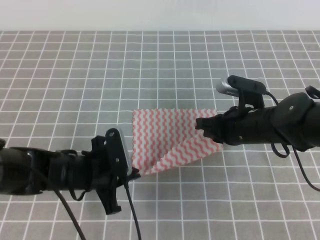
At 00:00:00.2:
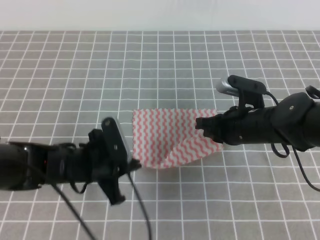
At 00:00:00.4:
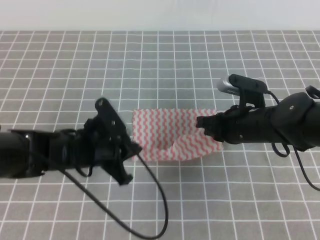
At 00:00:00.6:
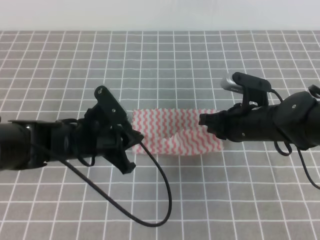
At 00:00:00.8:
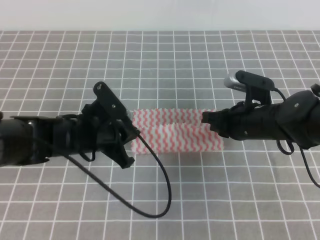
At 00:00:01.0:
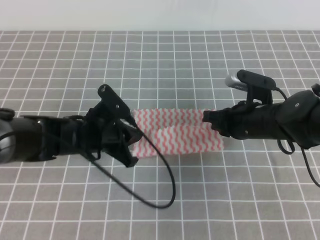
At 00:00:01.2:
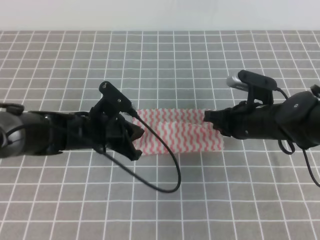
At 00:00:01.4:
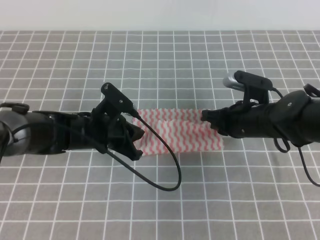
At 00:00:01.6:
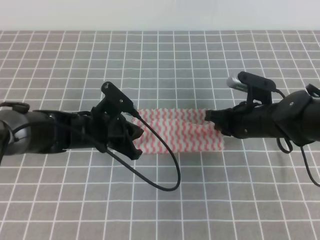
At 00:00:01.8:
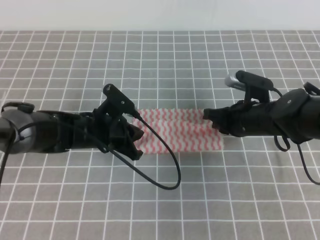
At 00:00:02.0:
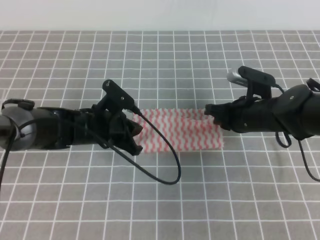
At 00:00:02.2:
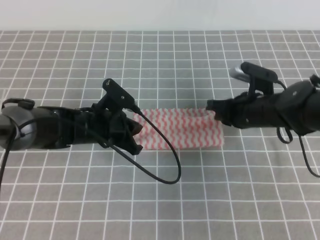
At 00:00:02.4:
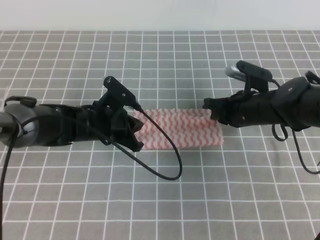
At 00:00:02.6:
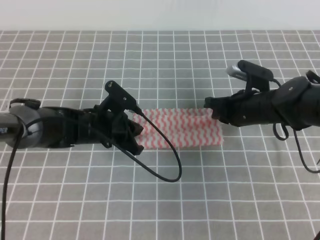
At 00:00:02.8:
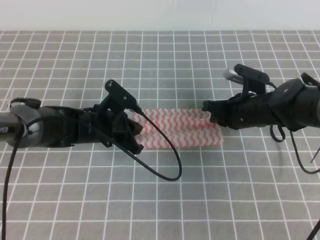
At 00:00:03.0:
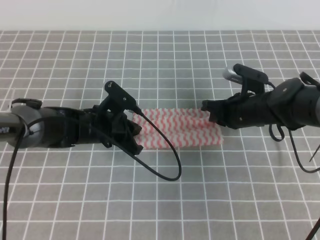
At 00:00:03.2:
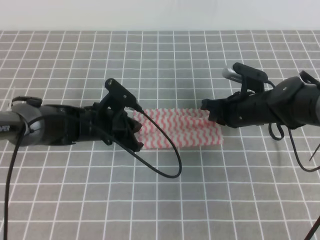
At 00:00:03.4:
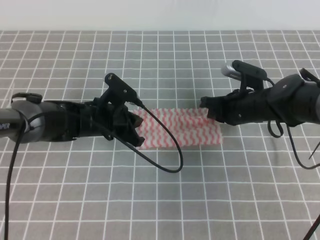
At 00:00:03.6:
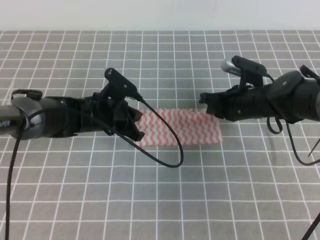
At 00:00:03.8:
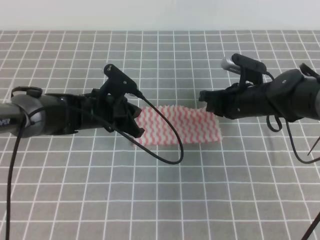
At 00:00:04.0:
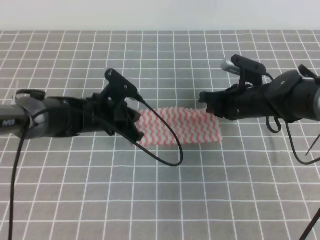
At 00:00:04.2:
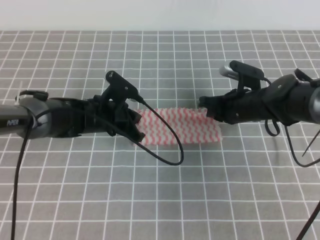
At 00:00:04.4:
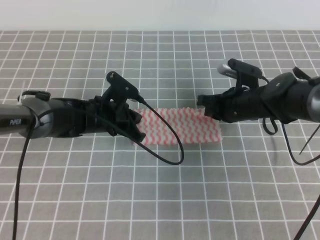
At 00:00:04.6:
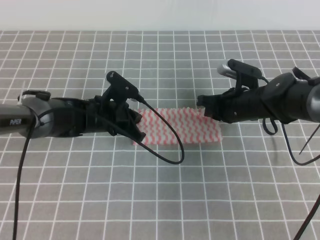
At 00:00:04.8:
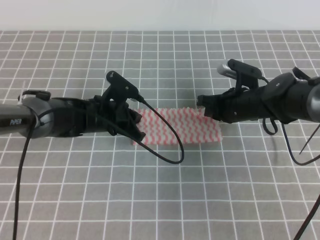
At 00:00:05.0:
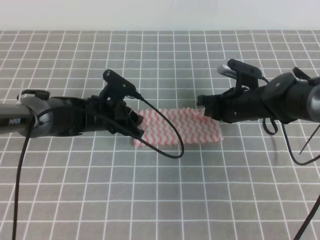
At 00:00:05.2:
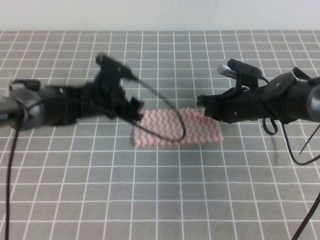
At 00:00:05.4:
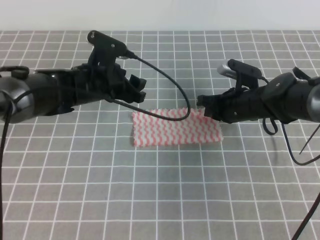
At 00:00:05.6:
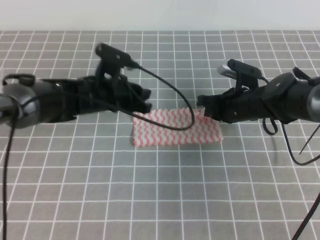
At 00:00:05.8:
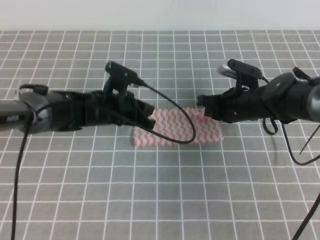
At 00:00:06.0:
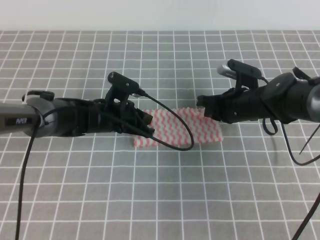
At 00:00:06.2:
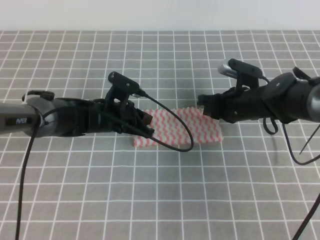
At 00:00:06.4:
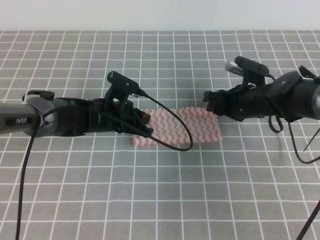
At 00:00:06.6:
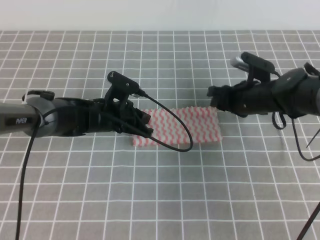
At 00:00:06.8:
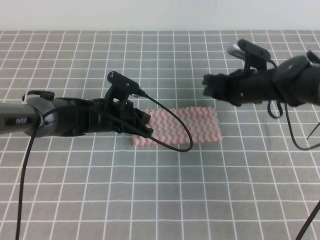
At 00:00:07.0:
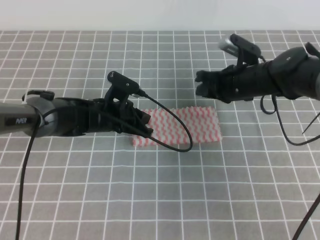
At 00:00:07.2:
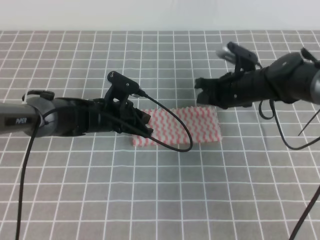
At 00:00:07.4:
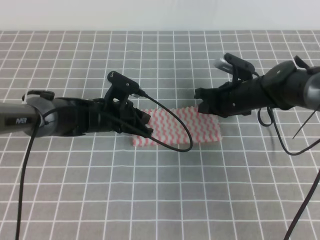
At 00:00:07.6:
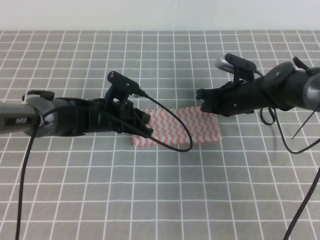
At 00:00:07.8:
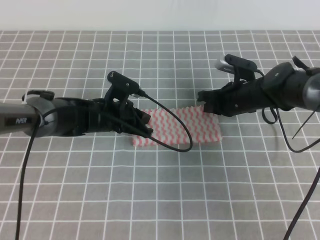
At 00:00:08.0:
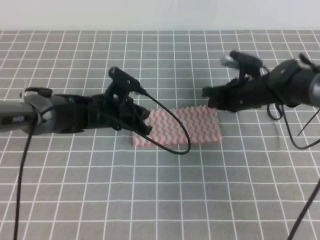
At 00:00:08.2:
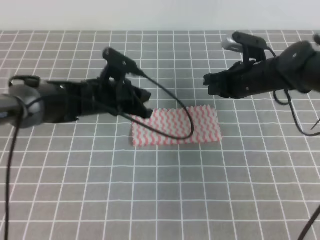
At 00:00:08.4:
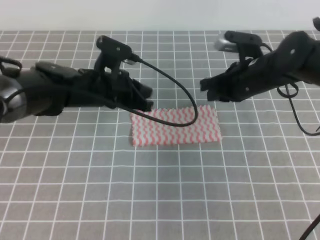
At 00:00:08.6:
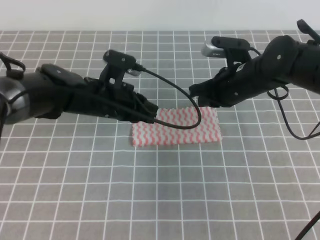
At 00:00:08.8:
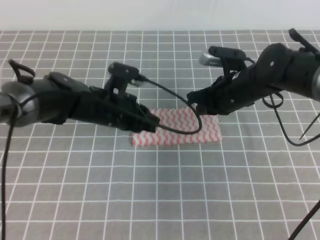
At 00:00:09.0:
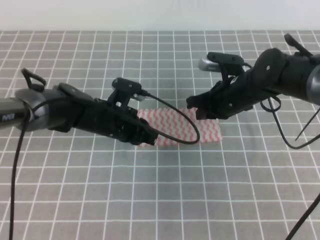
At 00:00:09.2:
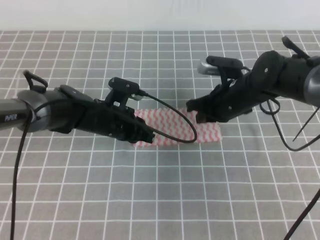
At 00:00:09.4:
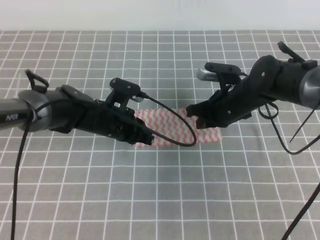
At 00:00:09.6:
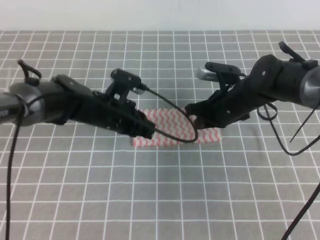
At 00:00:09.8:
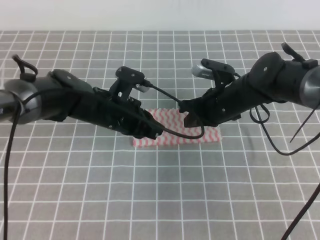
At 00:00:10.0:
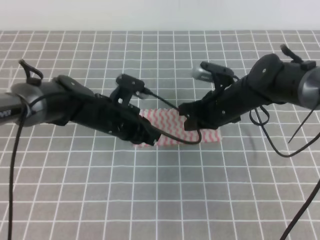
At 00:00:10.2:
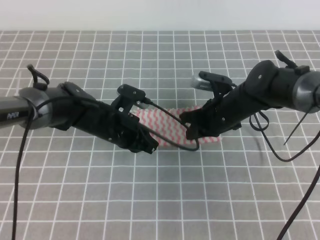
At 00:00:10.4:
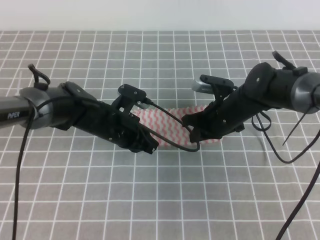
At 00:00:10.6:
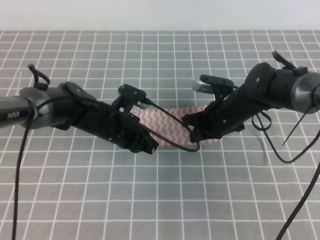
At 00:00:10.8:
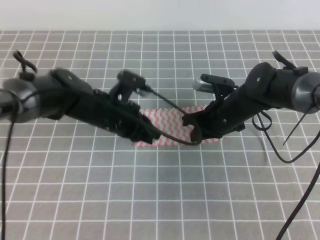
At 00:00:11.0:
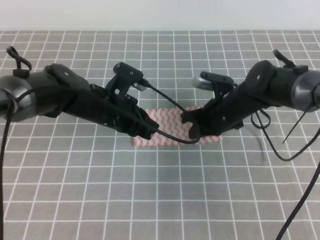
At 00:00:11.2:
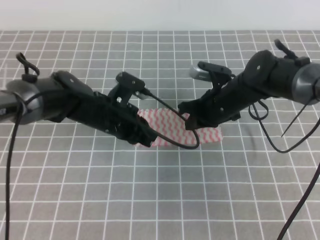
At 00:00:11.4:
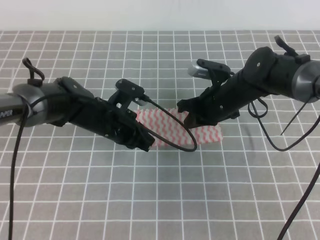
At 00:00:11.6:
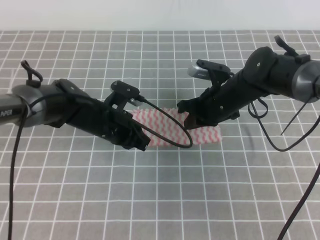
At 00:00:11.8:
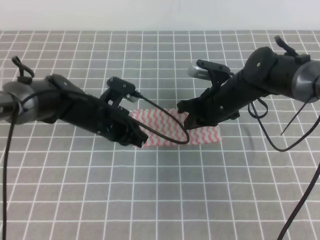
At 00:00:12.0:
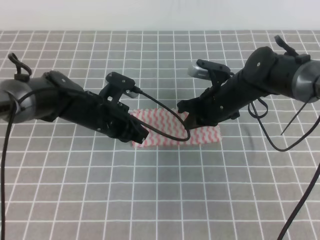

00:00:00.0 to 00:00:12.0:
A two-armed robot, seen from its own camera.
00:00:00.0 to 00:00:01.6: The left gripper shifts about 10 cm forward.
00:00:01.6 to 00:00:04.4: The grippers move only a little.
00:00:04.4 to 00:00:06.0: The left gripper opens and closes again.
00:00:06.0 to 00:00:07.6: The right gripper opens, then closes again.
00:00:07.6 to 00:00:09.0: The right gripper changes place by some 5 cm.
00:00:09.0 to 00:00:12.0: The grippers move only a little.

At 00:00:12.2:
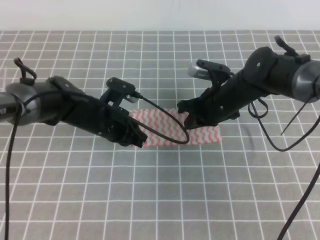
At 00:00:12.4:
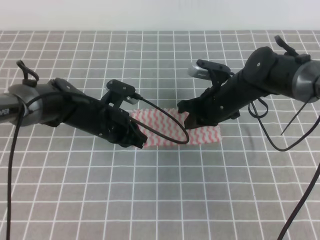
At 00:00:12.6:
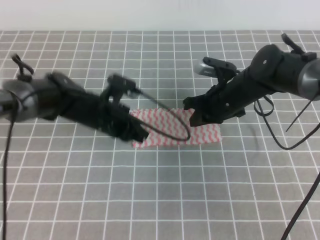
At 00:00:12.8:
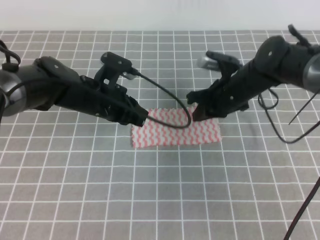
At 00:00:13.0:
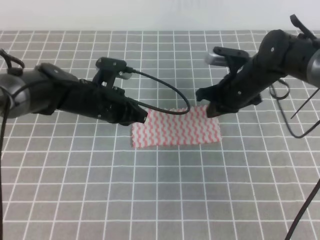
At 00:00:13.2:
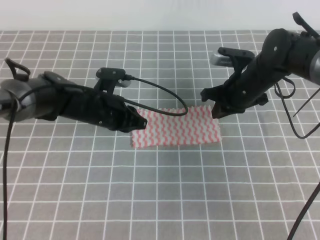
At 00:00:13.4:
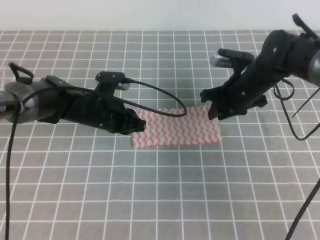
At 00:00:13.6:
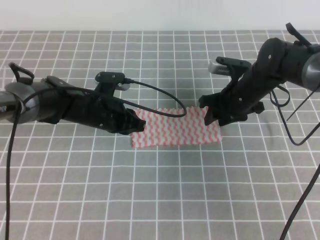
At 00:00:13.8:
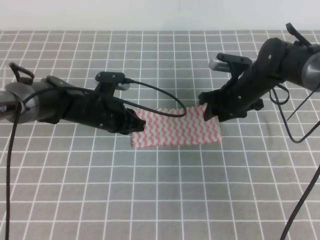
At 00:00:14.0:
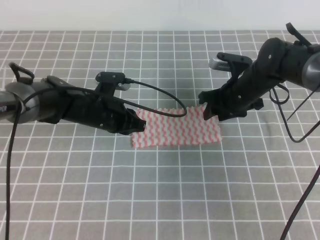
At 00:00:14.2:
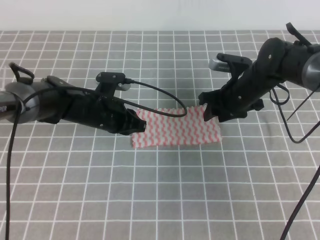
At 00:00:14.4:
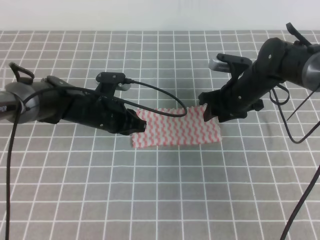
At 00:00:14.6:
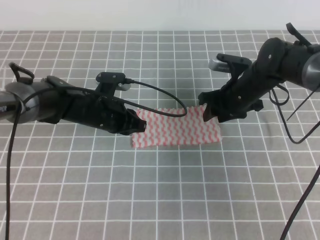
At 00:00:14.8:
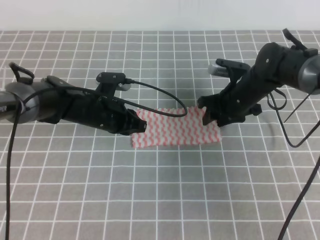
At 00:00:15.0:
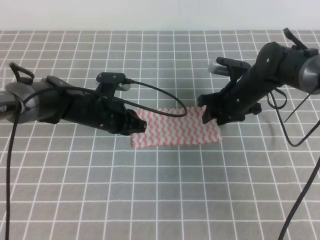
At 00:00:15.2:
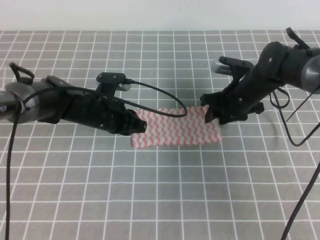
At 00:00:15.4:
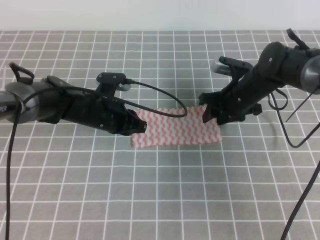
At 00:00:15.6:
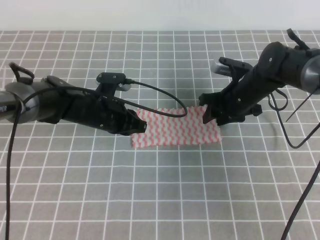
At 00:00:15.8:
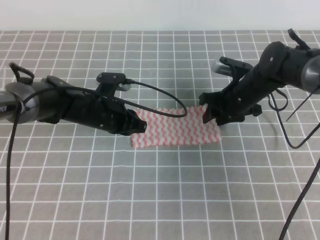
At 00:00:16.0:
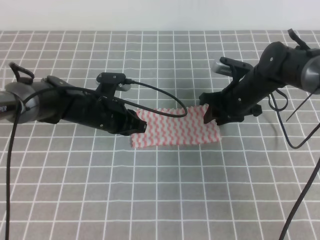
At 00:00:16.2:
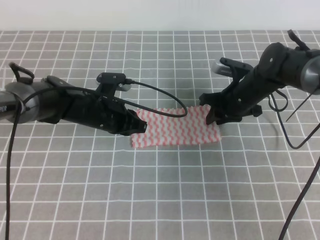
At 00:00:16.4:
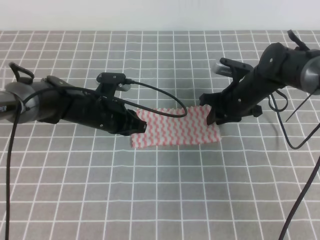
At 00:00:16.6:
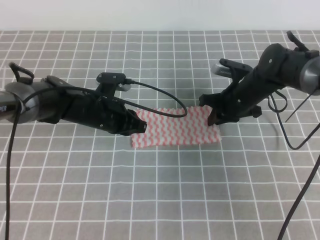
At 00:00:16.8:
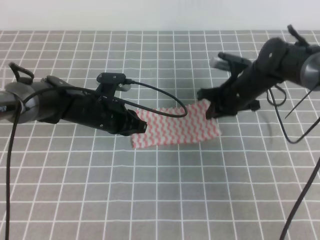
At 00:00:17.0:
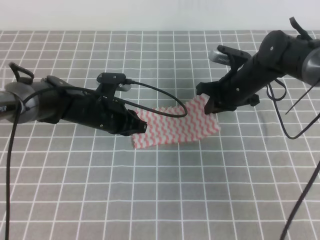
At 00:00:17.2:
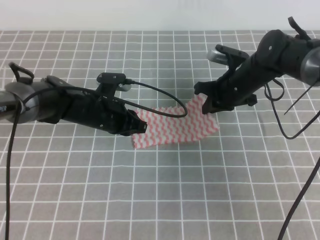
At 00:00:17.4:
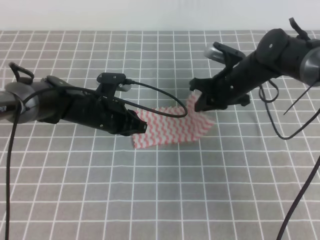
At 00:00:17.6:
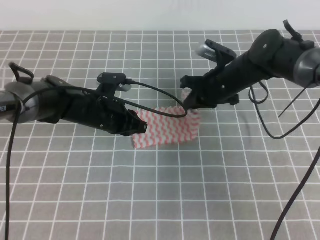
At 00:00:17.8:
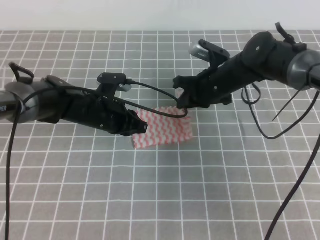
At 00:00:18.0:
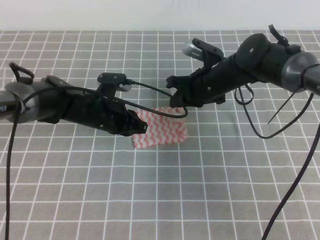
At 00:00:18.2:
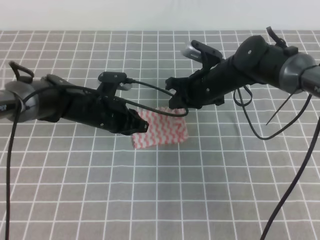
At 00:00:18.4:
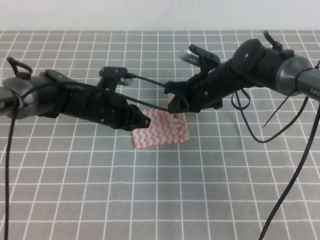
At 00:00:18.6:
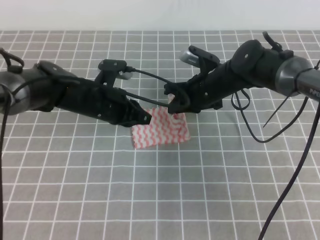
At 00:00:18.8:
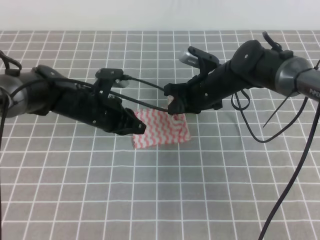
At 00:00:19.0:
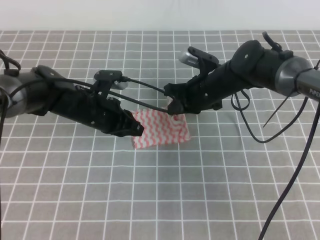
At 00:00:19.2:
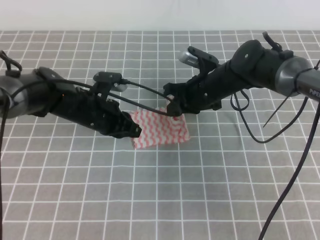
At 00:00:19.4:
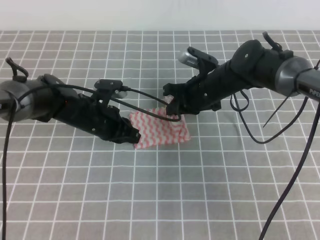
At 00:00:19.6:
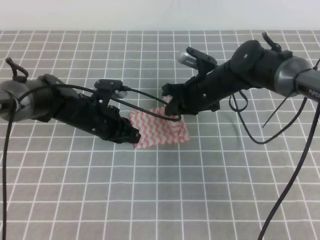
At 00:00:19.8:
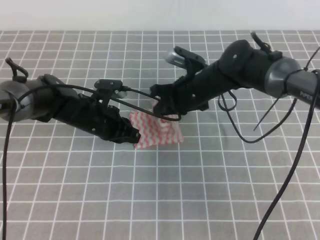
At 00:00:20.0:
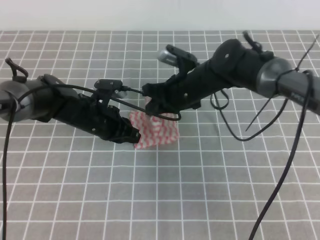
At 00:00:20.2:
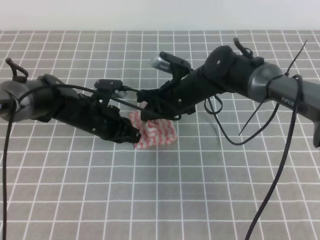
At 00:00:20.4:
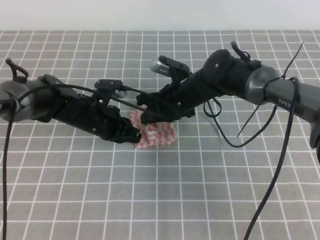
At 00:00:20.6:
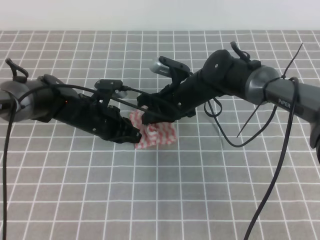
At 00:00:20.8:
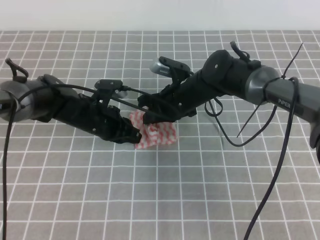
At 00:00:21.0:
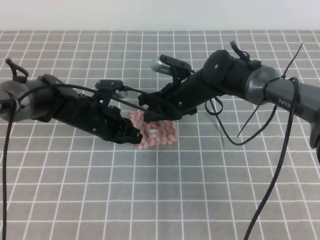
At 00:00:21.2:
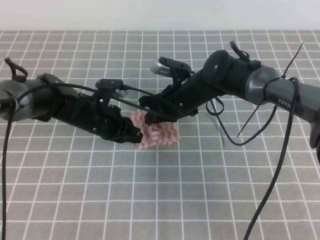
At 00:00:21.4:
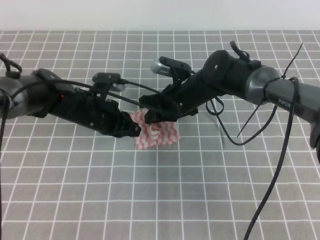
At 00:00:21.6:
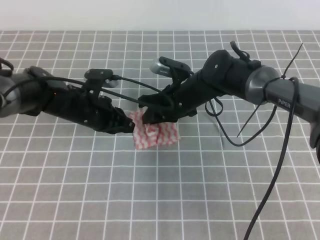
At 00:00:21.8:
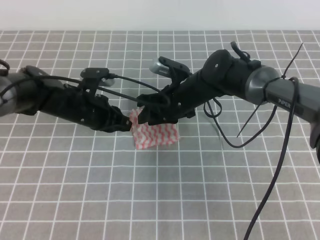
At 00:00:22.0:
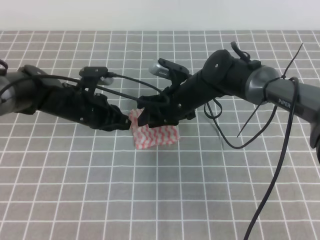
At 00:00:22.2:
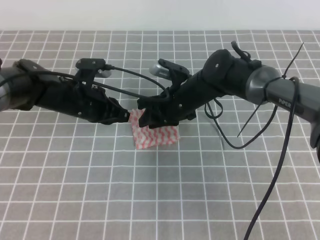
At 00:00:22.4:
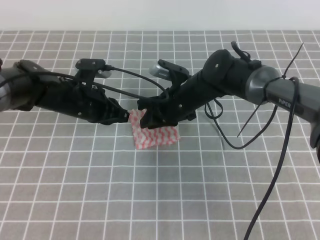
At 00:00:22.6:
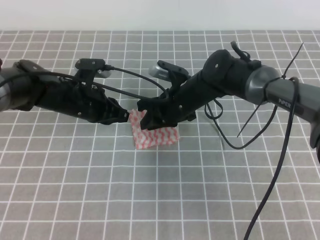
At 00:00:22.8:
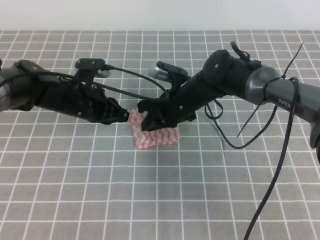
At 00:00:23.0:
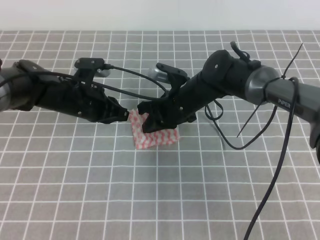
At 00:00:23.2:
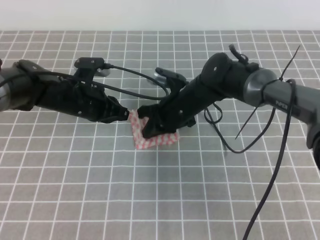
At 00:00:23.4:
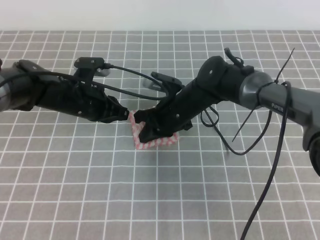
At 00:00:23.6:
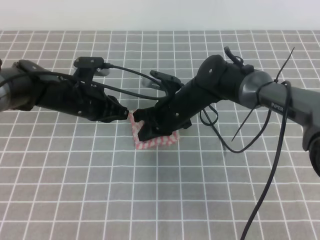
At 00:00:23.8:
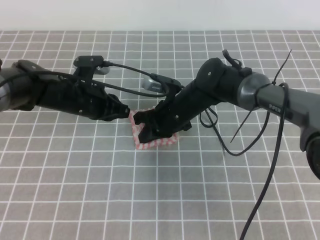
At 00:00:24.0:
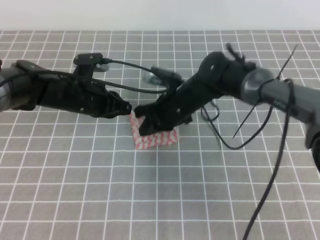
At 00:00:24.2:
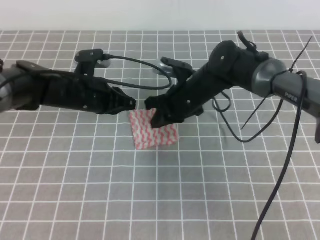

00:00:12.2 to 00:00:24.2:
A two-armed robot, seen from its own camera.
00:00:12.2 to 00:00:13.8: The right gripper opens up.
00:00:13.8 to 00:00:15.2: Both grippers stay put.
00:00:15.2 to 00:00:16.6: The right gripper closes.
00:00:16.6 to 00:00:18.2: The right gripper moves to the left, about 5 cm.
00:00:18.2 to 00:00:21.2: The grippers make only small movements.
00:00:21.2 to 00:00:22.6: The right gripper opens, then closes again.
00:00:22.6 to 00:00:24.2: The grippers make only small movements.
